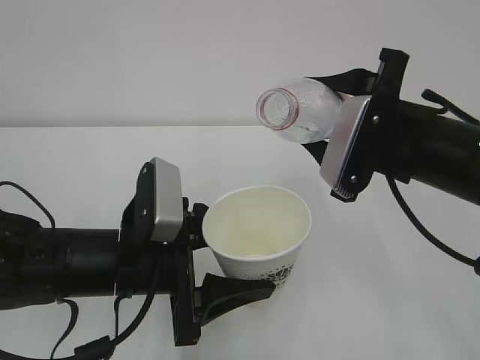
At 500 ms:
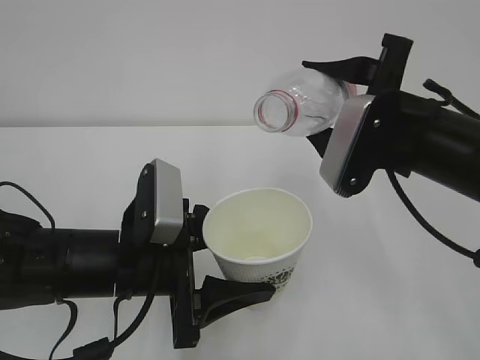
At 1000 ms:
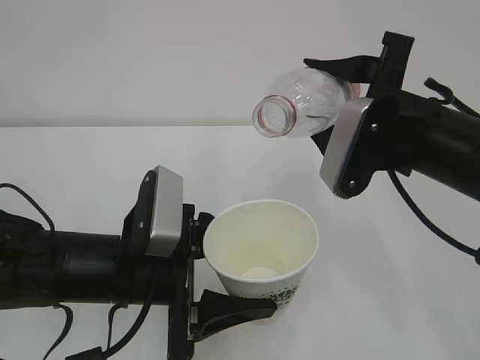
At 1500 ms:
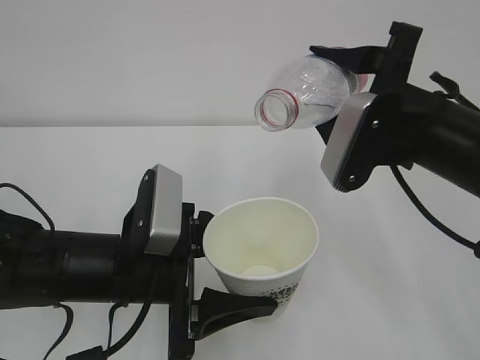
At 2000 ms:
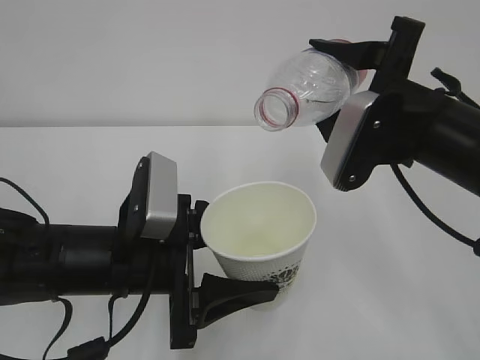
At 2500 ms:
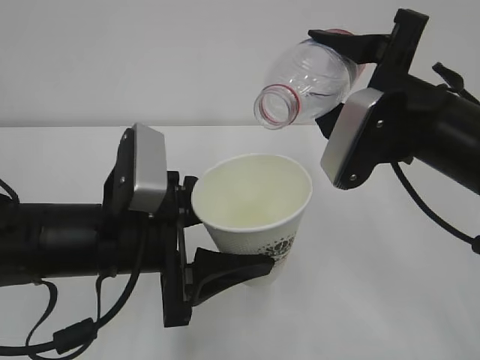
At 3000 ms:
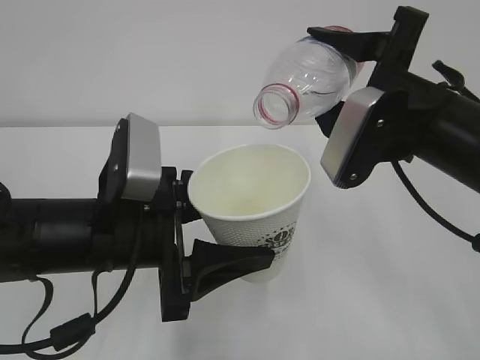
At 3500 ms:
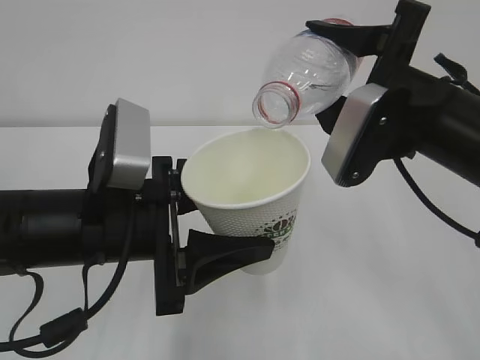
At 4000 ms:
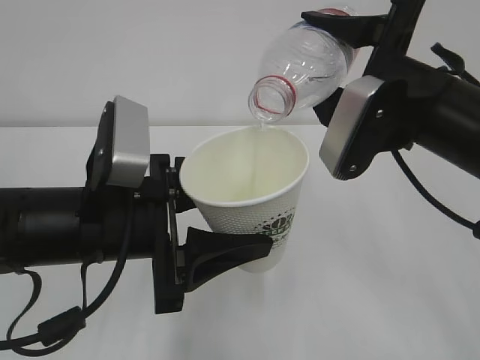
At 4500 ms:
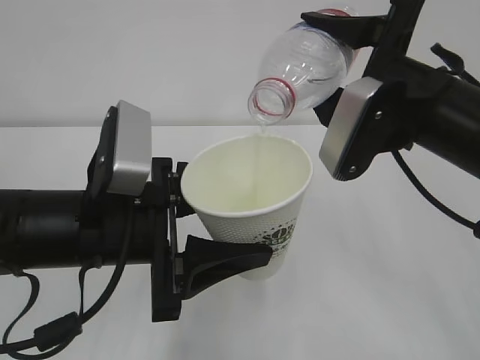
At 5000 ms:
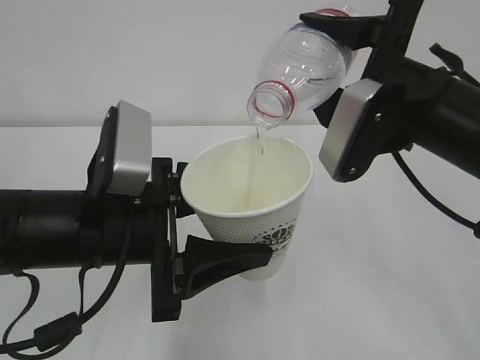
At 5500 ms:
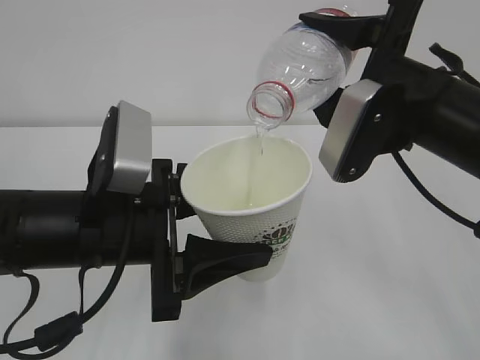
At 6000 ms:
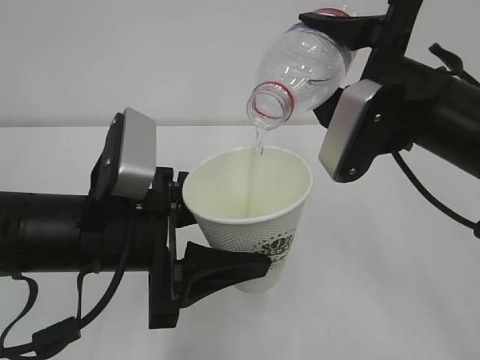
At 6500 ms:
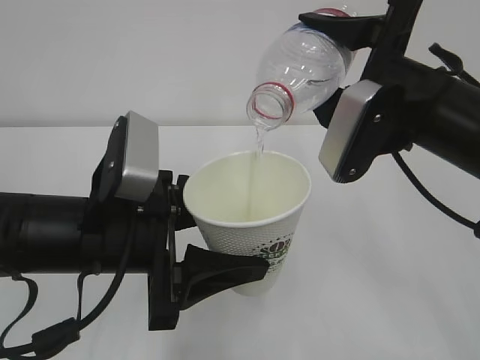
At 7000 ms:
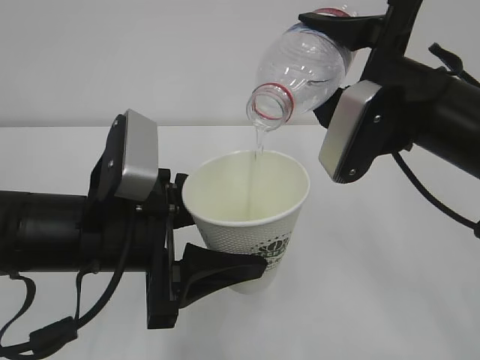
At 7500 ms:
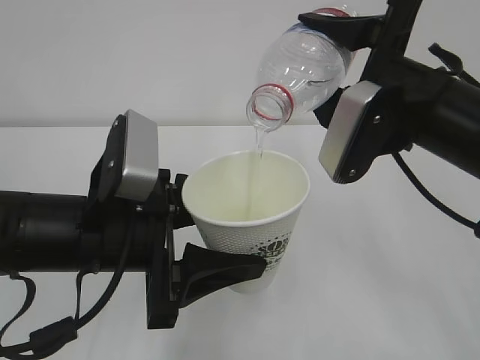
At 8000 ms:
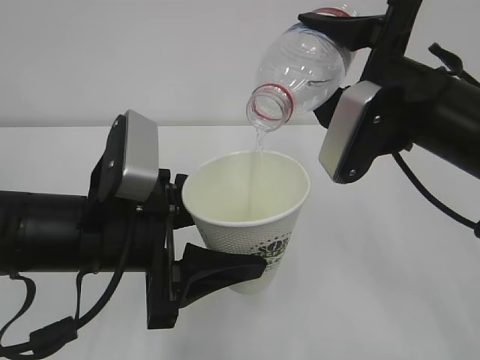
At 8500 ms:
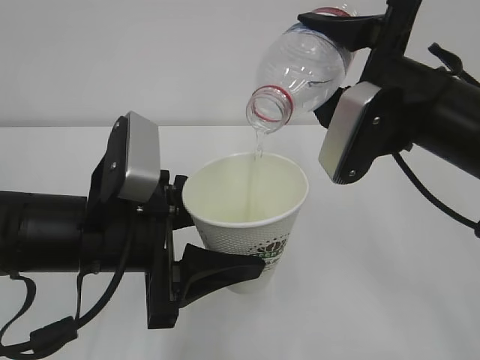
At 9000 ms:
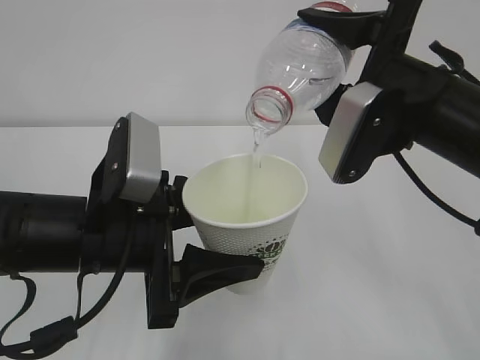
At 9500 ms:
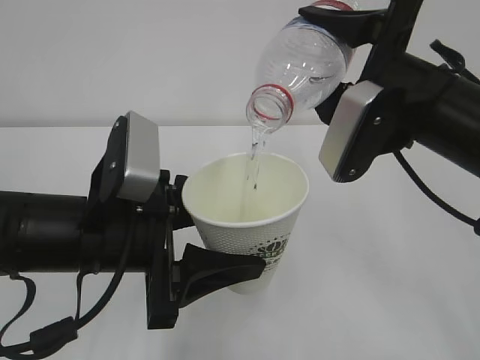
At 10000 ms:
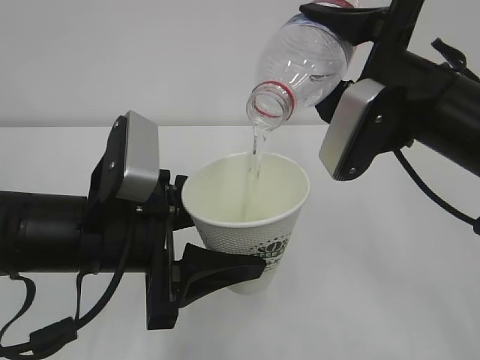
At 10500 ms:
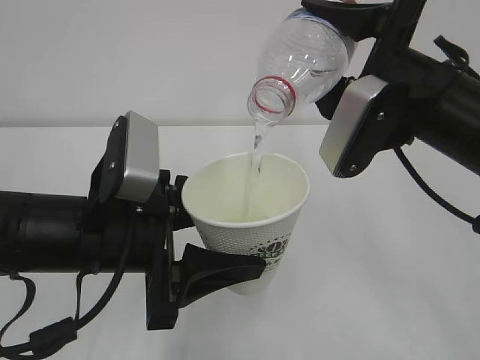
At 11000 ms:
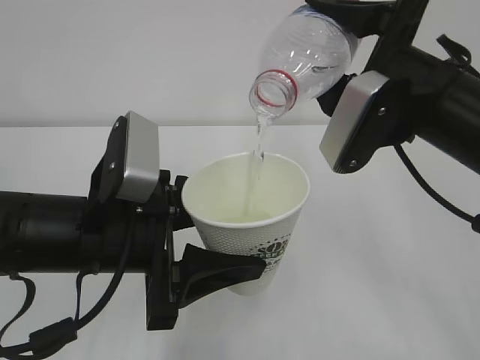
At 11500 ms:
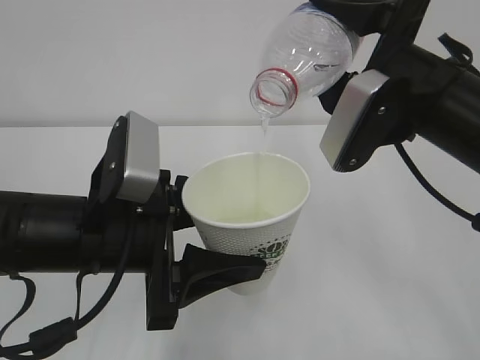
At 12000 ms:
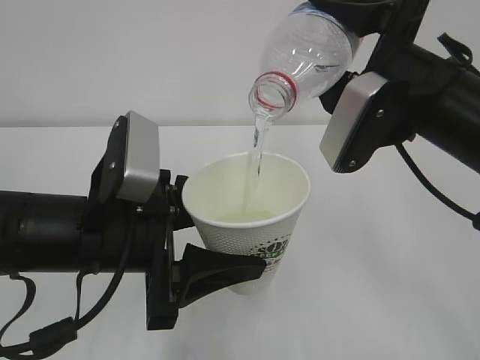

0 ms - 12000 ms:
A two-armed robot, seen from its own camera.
0 ms - 2000 ms: The grippers stay close to where they were, moving slightly.
2000 ms - 4000 ms: The left gripper heads upward, covering some 5 cm.
4000 ms - 6000 ms: Neither gripper changes place.
6000 ms - 10000 ms: Both grippers stay about where they are.
10000 ms - 12000 ms: The two grippers keep their place.

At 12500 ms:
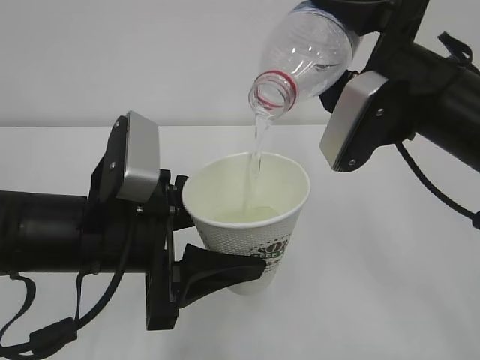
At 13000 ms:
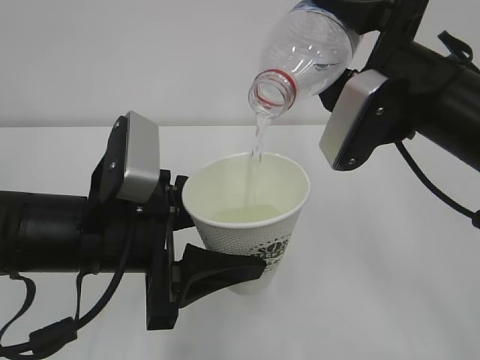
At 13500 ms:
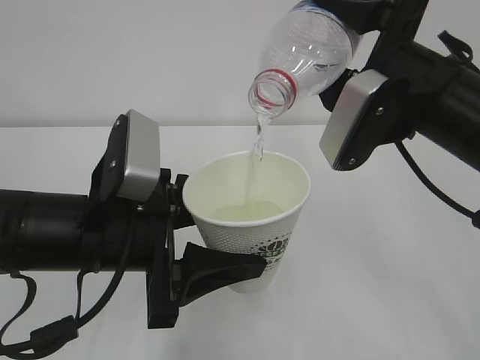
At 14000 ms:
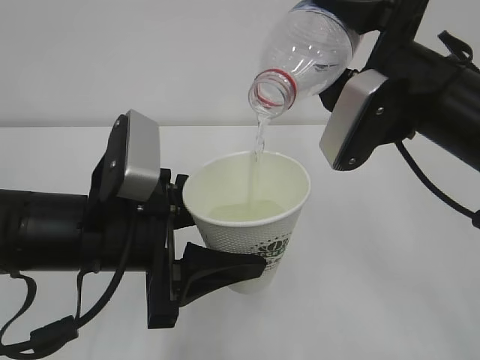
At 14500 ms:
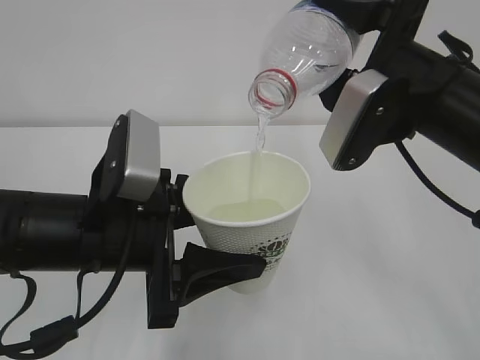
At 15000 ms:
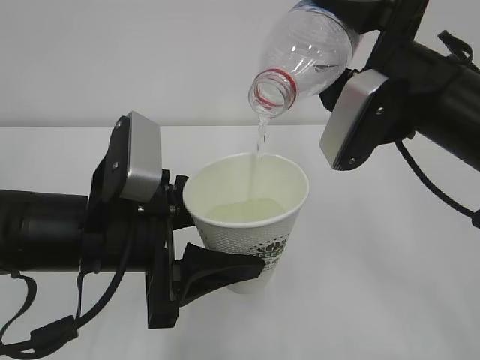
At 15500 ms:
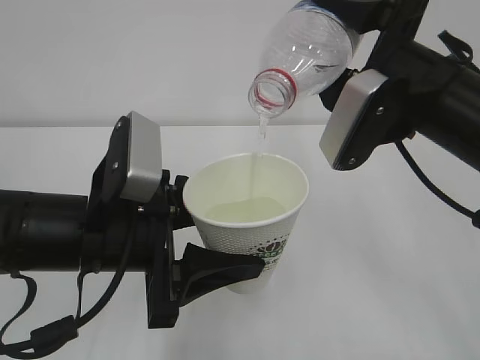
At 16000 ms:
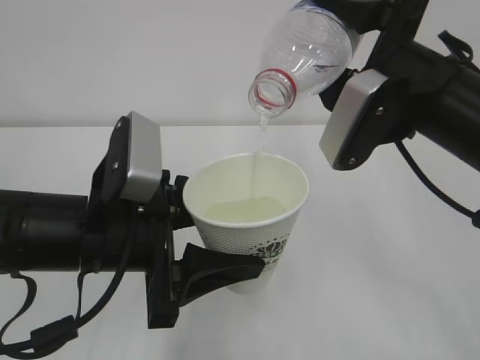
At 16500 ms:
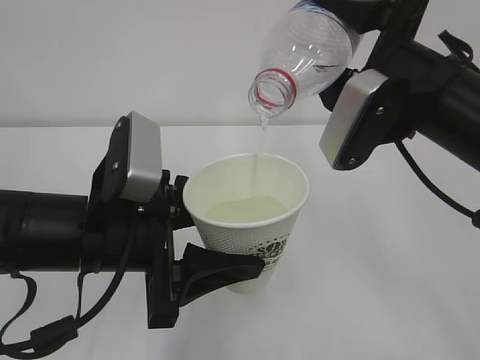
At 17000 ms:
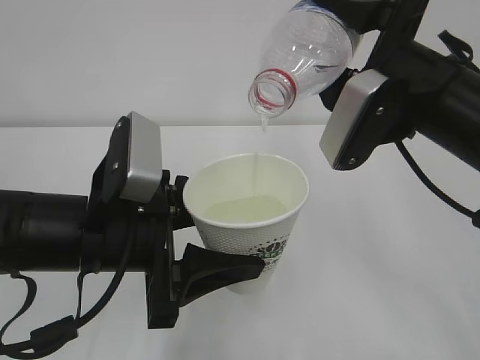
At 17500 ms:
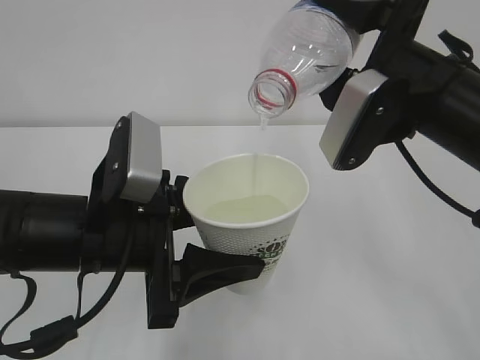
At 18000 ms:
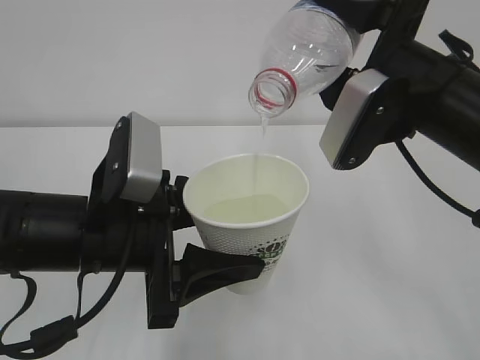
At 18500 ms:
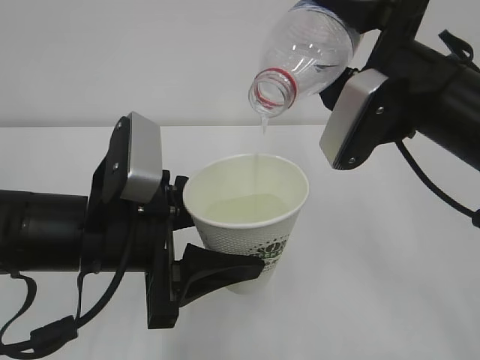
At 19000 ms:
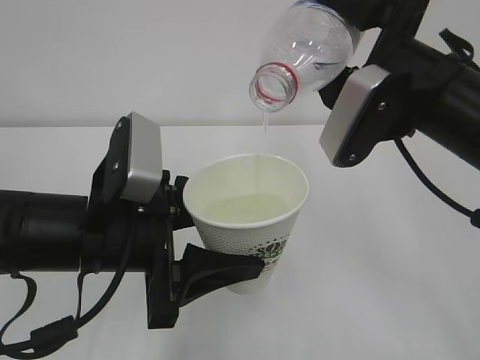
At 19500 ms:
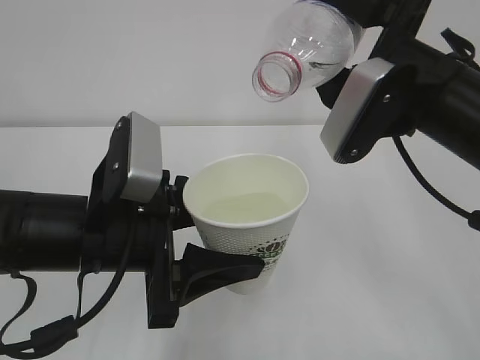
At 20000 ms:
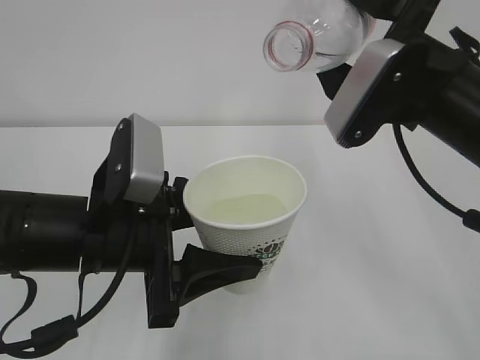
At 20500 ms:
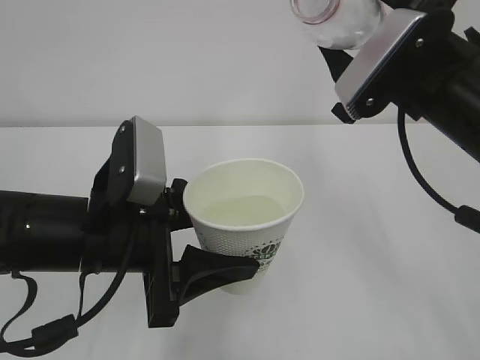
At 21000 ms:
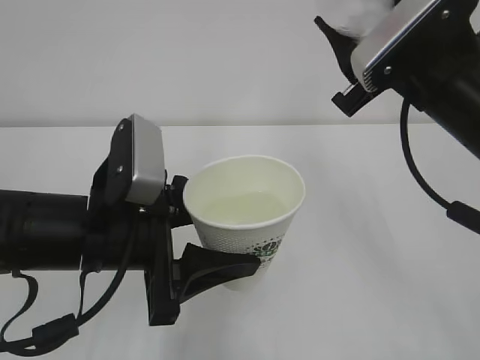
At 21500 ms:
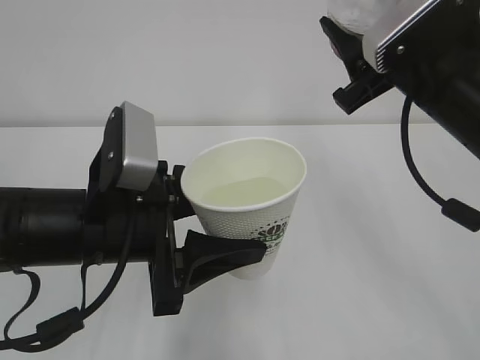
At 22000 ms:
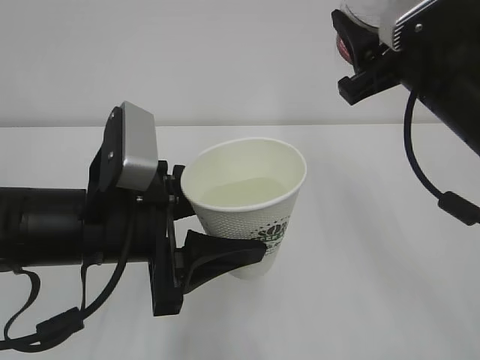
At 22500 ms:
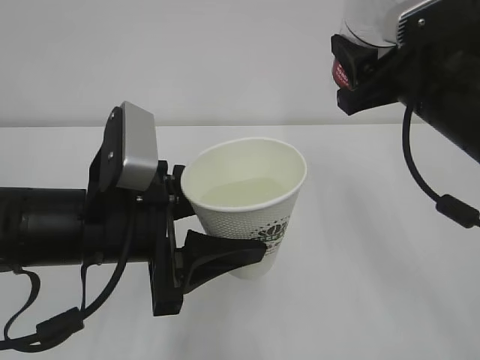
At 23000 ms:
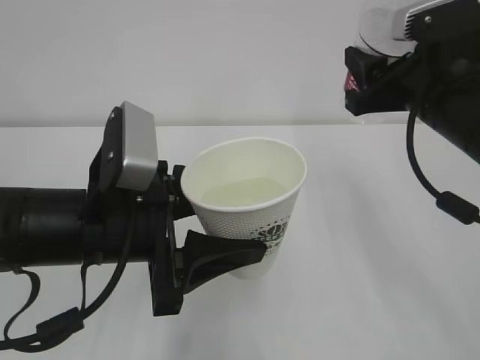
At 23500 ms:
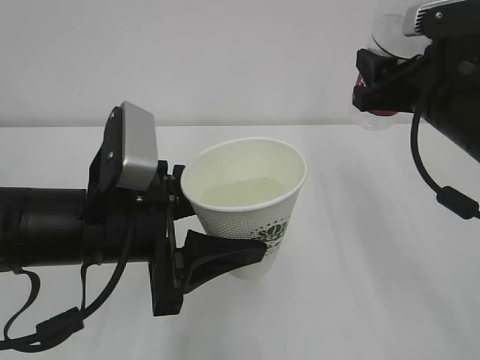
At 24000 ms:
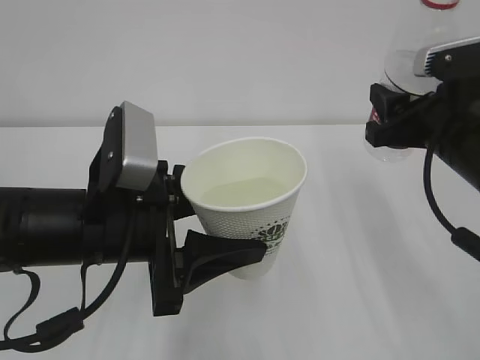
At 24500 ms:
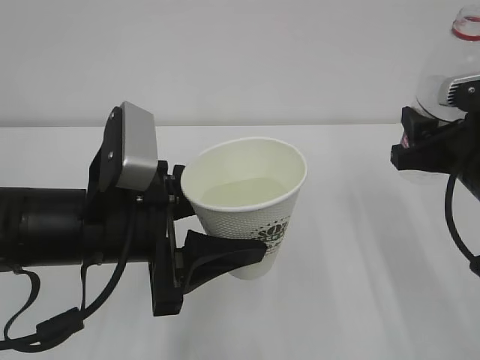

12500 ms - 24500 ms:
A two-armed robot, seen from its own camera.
12500 ms - 18500 ms: Neither gripper changes place.
22500 ms - 24500 ms: The right gripper travels downward by roughly 5 cm.

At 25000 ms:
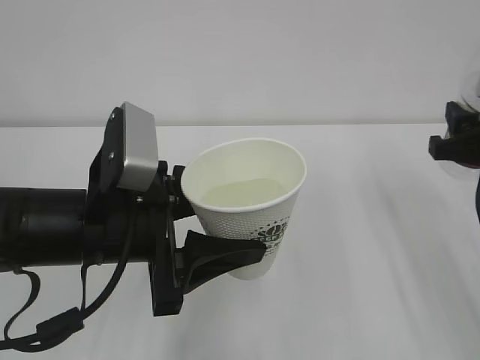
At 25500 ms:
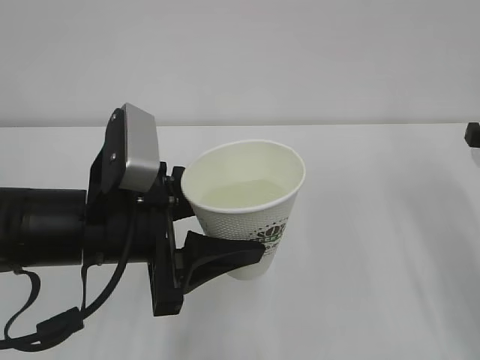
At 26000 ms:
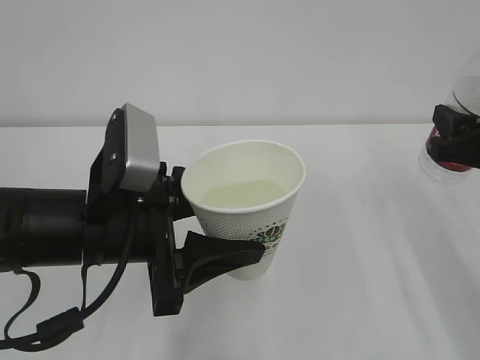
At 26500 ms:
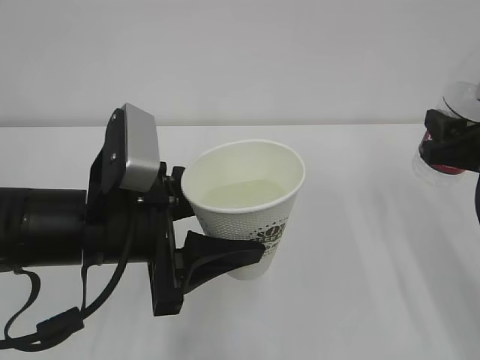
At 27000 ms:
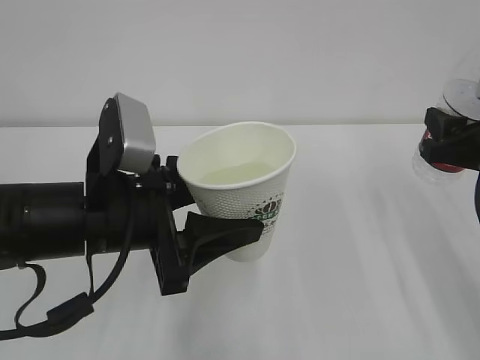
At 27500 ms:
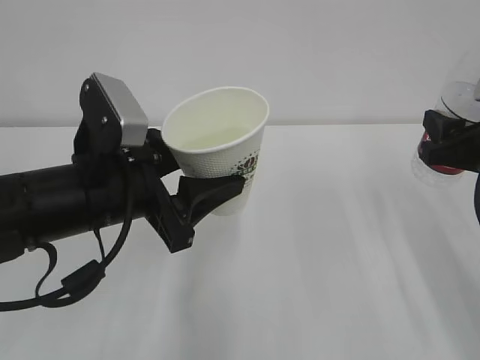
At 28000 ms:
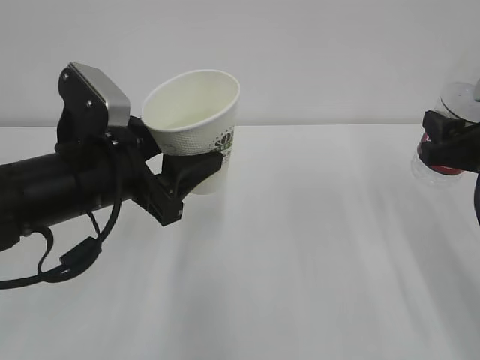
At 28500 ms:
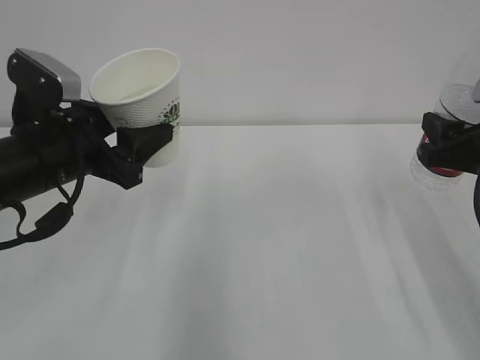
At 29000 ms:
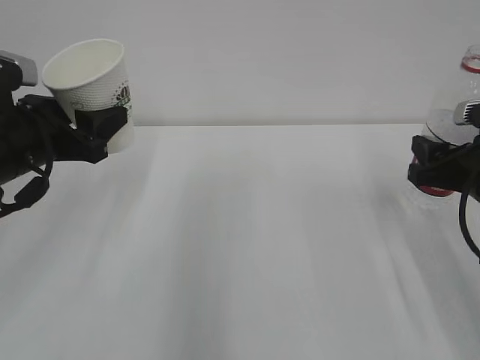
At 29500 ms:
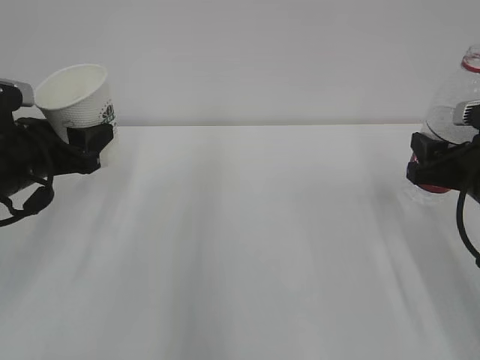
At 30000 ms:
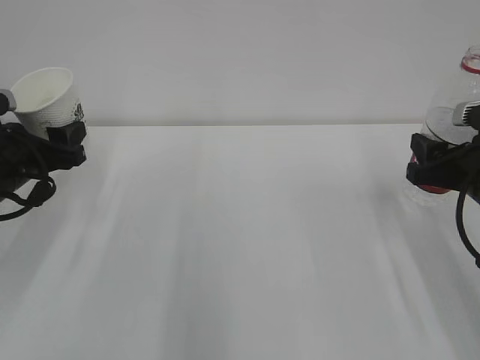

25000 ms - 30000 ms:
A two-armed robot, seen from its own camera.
27500 ms - 30000 ms: The left gripper is displaced to the left and forward by some 15 cm.
